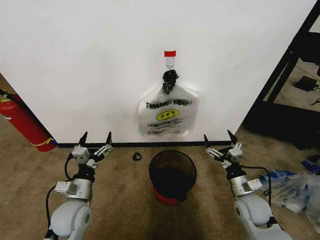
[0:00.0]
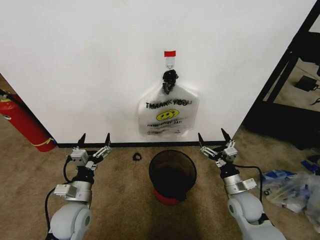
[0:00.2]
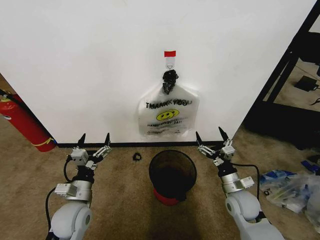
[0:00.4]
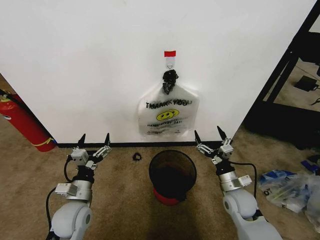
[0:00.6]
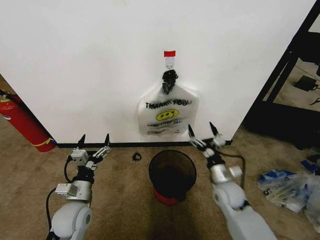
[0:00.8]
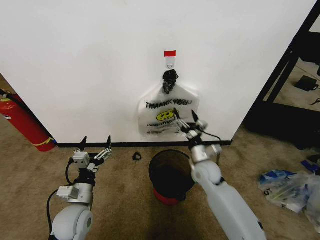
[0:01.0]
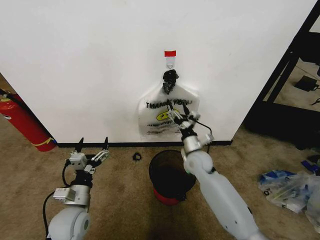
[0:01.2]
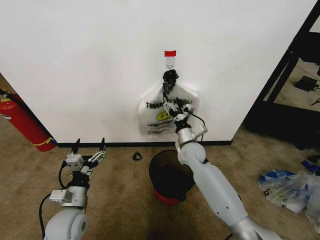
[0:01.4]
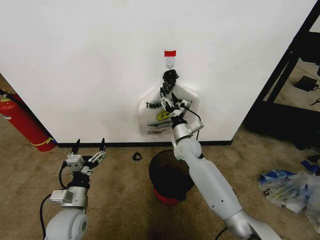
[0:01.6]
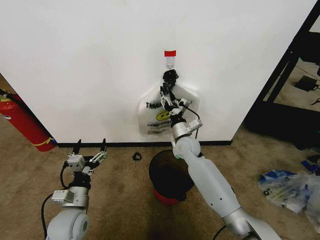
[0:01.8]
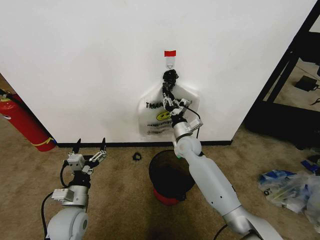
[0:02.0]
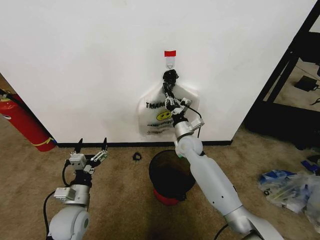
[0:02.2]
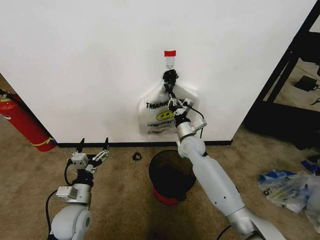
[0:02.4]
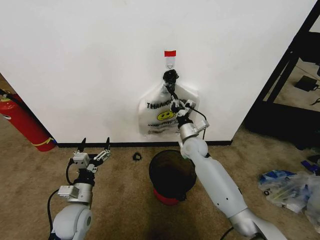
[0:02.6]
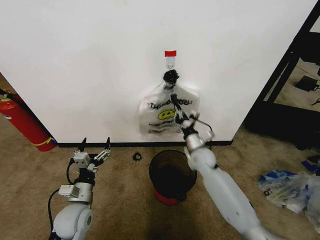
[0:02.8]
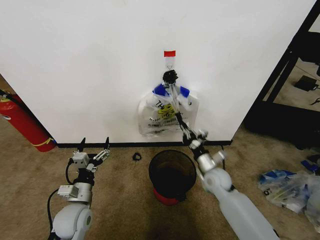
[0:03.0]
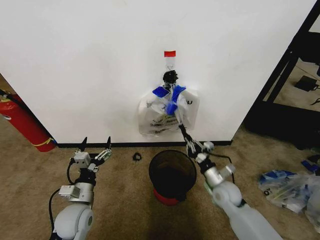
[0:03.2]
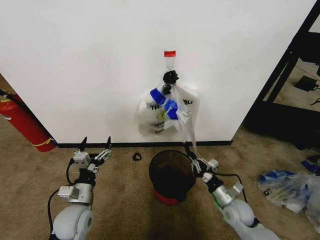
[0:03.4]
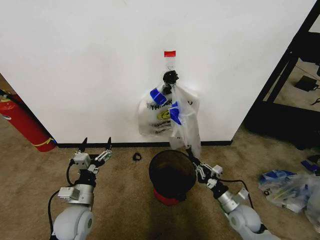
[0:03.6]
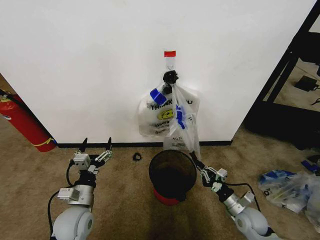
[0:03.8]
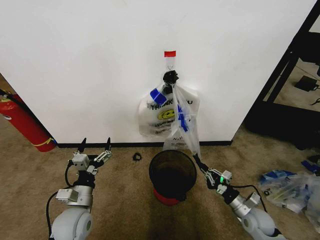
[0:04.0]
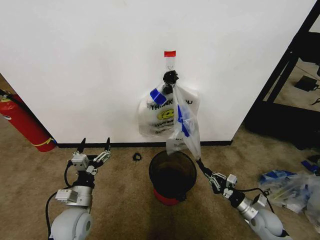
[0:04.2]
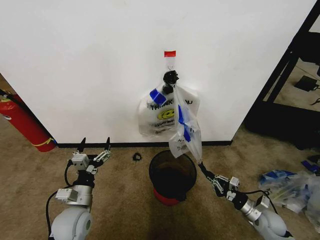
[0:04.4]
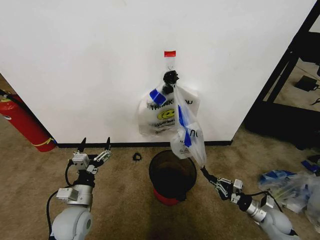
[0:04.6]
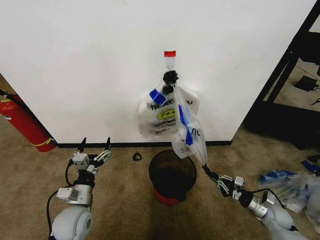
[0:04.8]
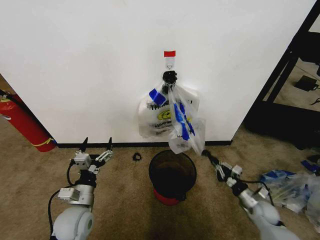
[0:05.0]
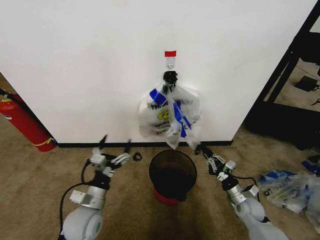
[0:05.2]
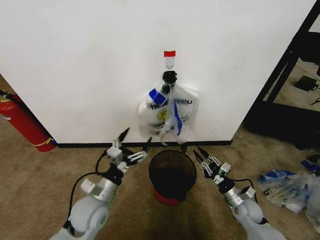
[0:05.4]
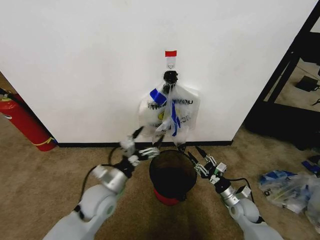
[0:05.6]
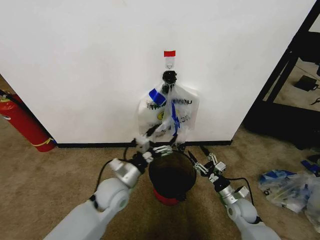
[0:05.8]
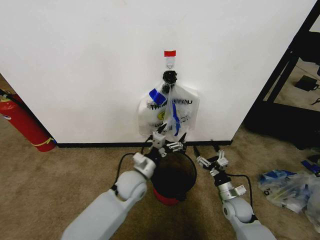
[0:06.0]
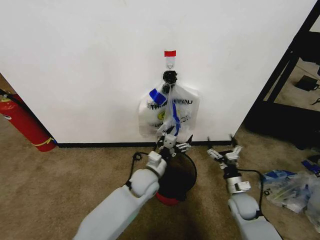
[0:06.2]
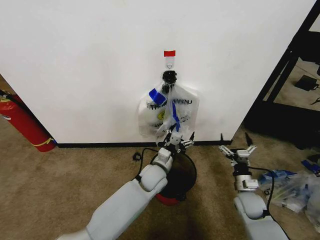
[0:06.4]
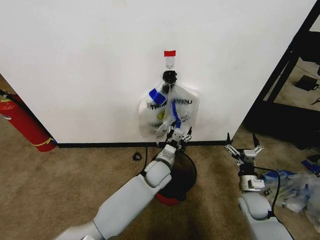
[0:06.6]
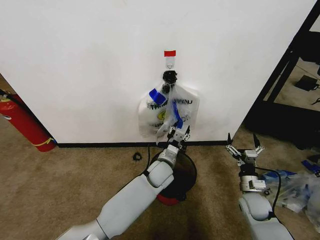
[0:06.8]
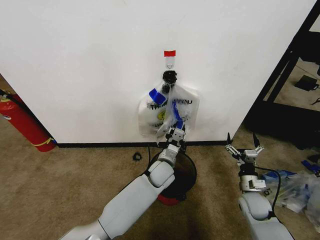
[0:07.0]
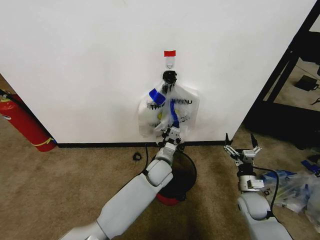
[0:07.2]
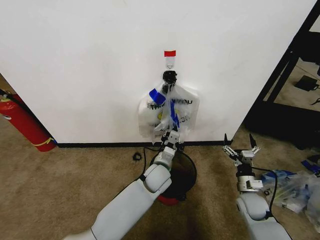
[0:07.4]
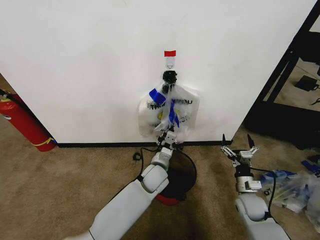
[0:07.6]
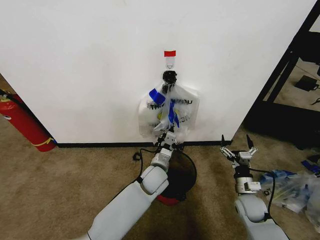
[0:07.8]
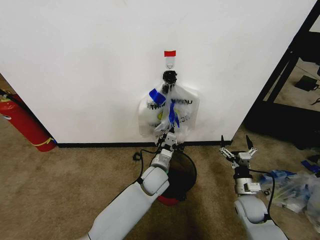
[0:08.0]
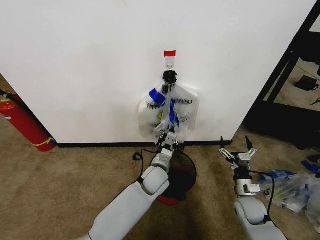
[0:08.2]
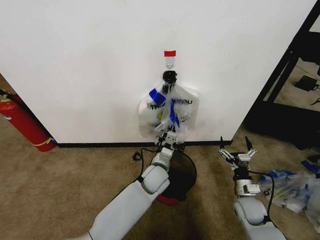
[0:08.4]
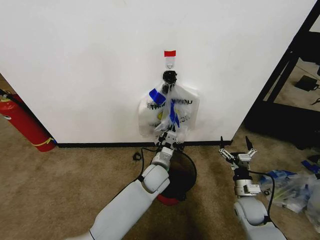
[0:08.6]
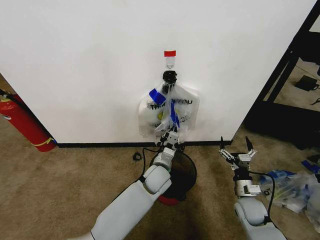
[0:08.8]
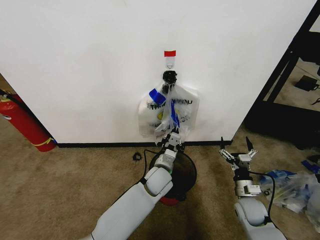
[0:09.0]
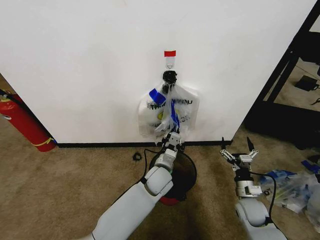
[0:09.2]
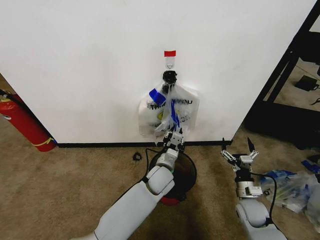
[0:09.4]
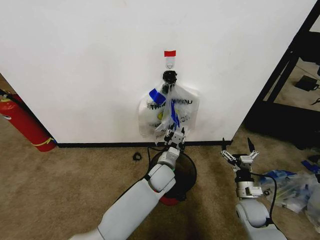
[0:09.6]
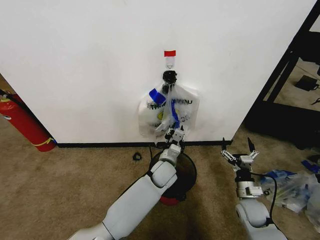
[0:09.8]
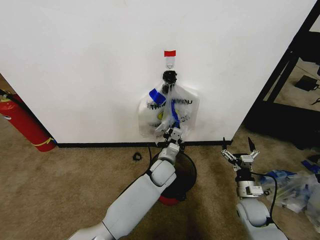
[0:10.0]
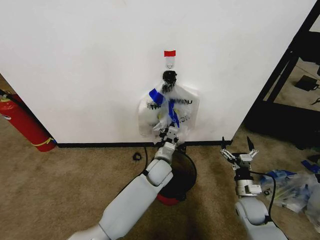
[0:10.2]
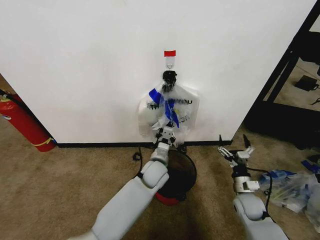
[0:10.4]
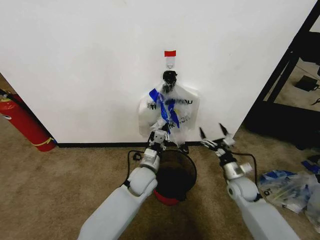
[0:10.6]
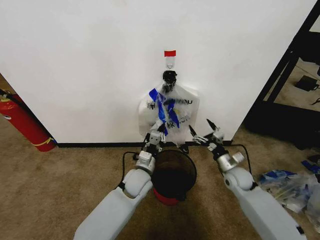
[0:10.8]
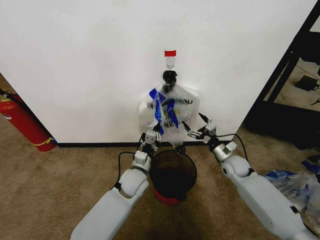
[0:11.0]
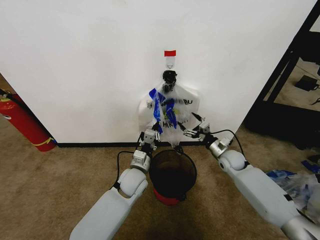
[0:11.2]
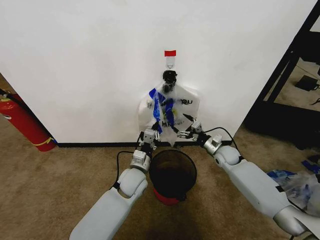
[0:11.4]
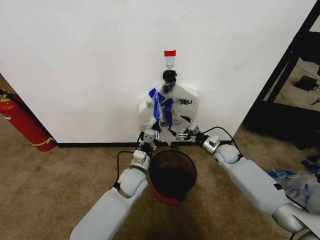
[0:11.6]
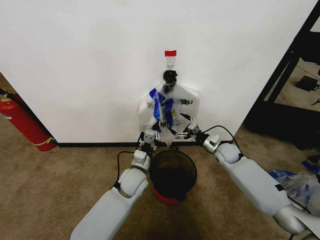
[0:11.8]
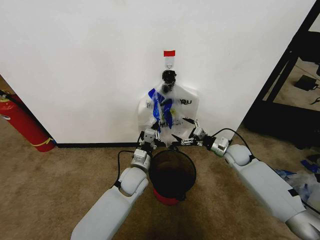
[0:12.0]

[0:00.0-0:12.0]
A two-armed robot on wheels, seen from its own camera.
Task of the whole recording: Pick up the garbage bag from the wall and place it over the trash bin.
0:01.6 to 0:03.0: The right gripper heads to the right, backward and downward, covering approximately 15 cm, and closes up.
0:03.0 to 0:04.4: The right gripper is displaced to the right, backward and downward by about 25 cm.
0:04.4 to 0:06.0: The left gripper travels to the right and forward by approximately 20 cm. The right gripper shifts about 10 cm to the left, and opens up.
0:06.0 to 0:07.6: The left gripper shifts some 10 cm to the right, and closes up. The right gripper ends up about 5 cm from where it was.
0:07.6 to 0:09.0: There are only small adjustments of the grippers.
0:09.0 to 0:10.4: The left gripper opens and closes again.
0:10.4 to 0:12.0: The right gripper travels forward and upward by approximately 20 cm; the left gripper heads to the left, covering some 5 cm.

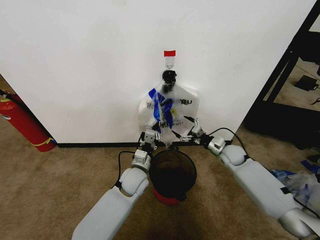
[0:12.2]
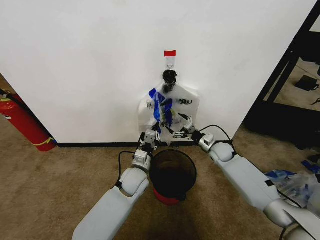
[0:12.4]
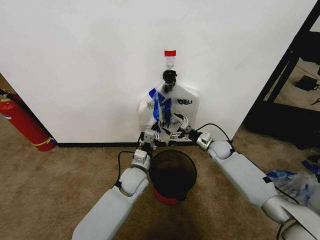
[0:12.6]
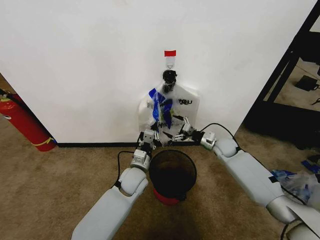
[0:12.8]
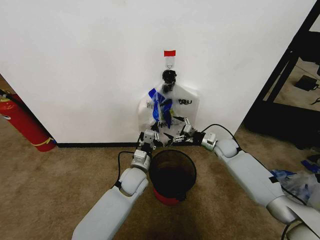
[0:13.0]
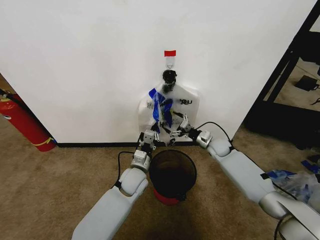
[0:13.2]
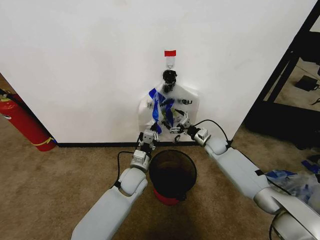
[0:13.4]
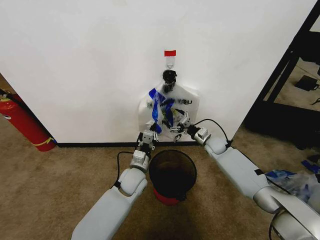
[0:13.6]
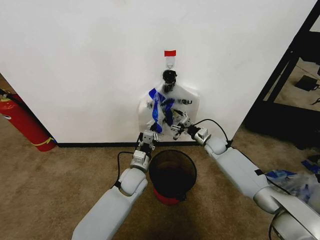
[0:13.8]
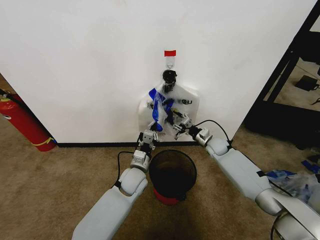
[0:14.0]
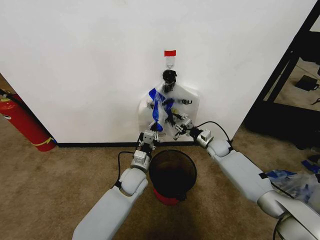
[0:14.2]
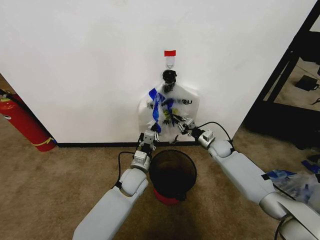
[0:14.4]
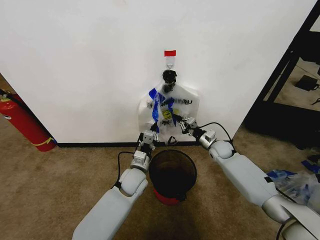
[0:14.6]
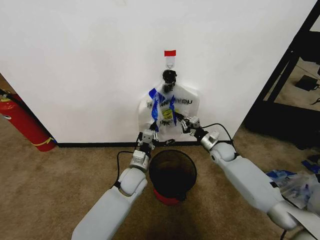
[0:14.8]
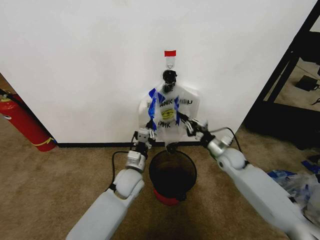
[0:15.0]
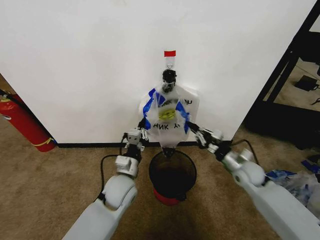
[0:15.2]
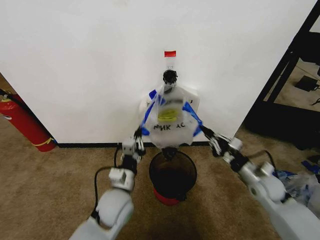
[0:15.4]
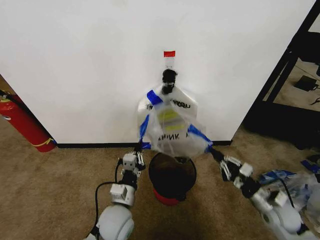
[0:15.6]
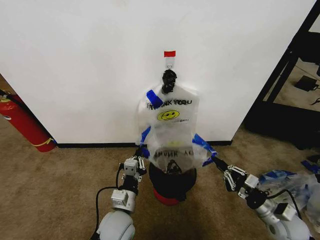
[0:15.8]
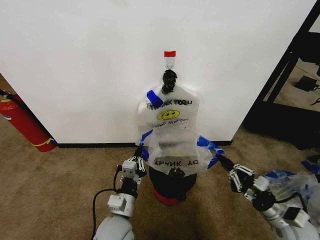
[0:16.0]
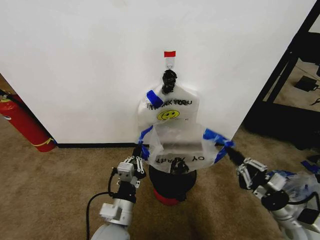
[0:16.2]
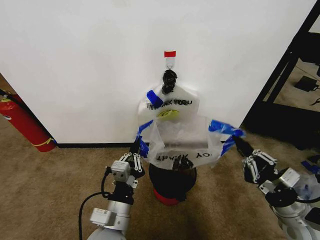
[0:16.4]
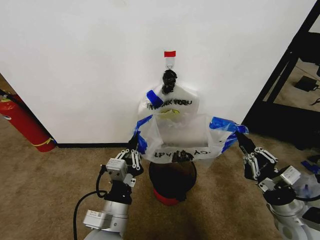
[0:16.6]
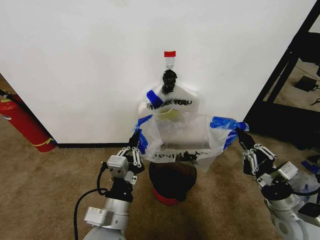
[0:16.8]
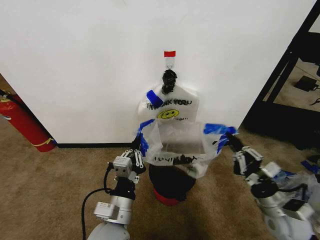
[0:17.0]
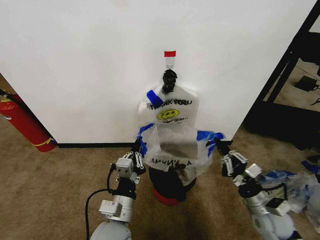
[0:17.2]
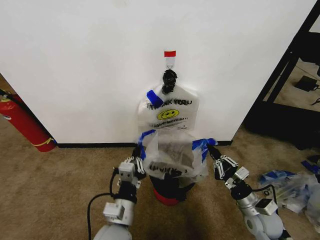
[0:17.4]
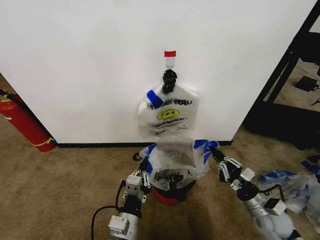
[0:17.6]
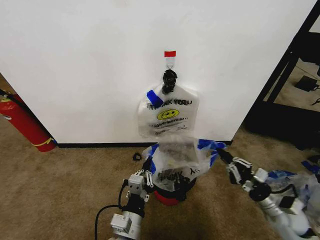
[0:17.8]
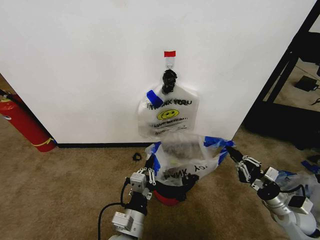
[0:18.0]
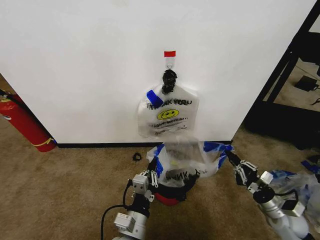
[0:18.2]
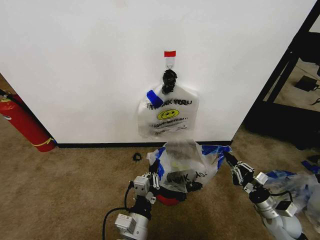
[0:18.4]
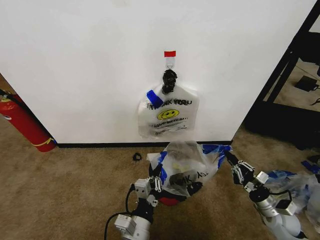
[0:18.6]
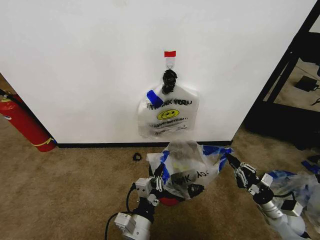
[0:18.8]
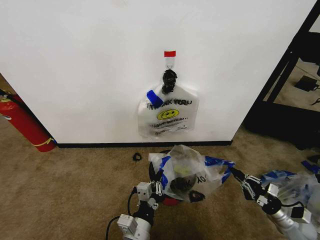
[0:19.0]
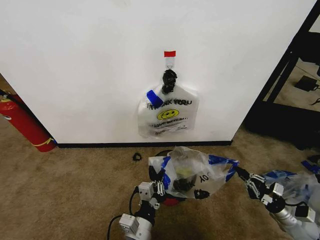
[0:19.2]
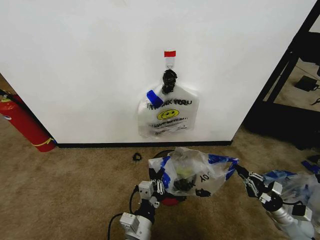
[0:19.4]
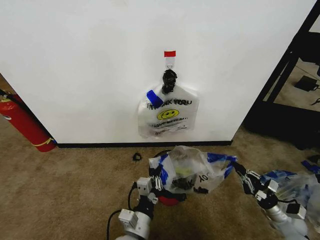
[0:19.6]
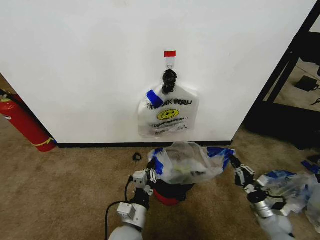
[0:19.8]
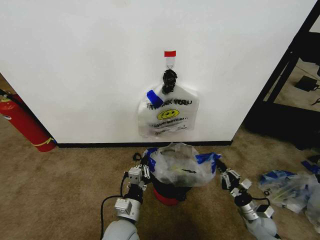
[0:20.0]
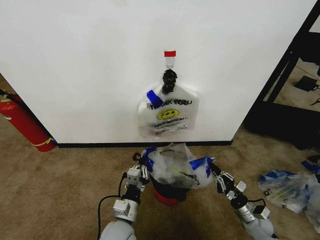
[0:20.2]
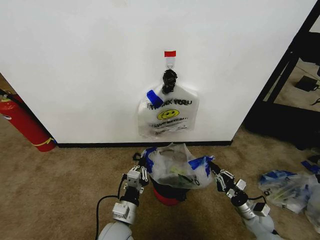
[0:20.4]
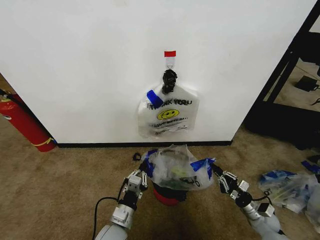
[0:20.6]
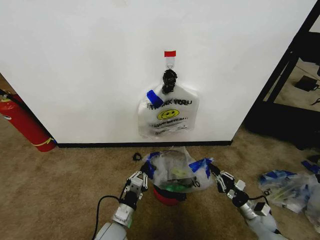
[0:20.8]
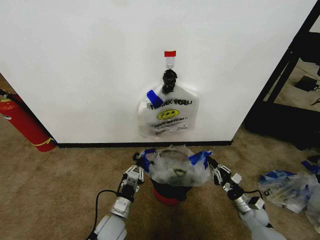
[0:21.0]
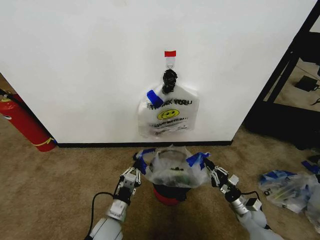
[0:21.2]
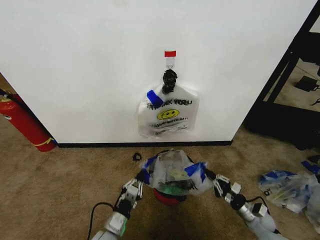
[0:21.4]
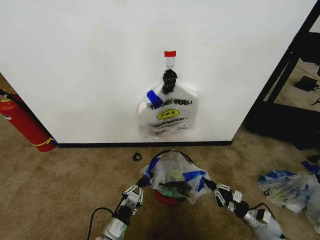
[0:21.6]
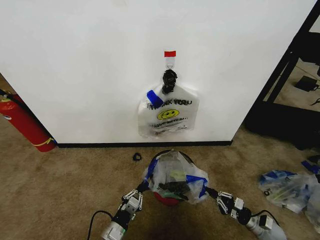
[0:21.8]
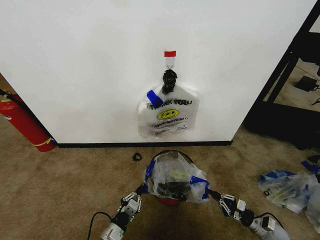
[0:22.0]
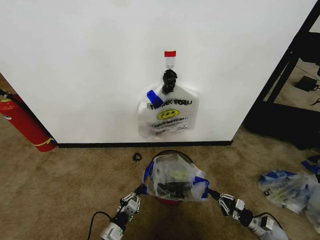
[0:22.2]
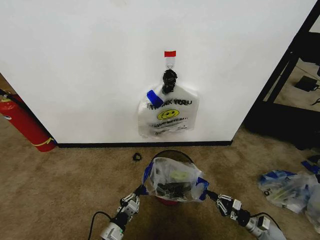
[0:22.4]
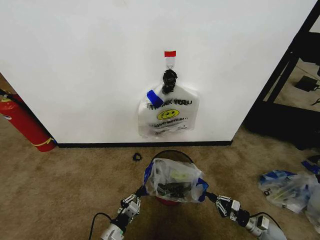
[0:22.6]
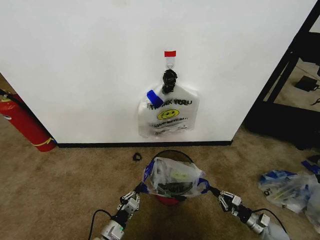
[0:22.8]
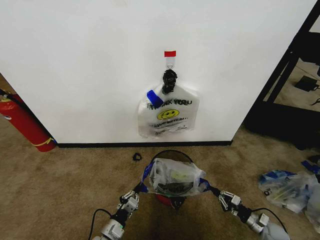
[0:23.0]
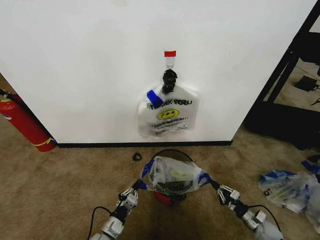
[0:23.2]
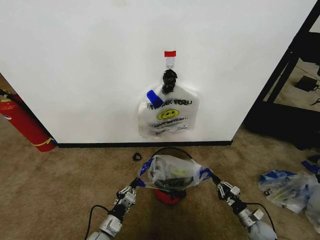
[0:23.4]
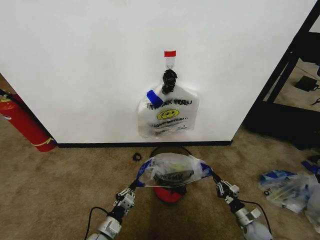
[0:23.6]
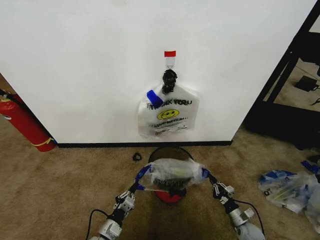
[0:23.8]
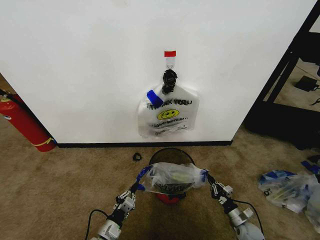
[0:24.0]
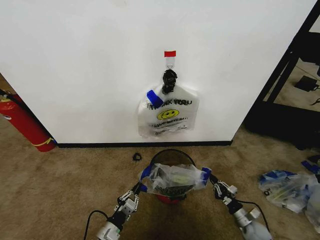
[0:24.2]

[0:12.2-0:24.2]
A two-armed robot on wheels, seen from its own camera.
Task of the whole recording: Pick up the garbage bag from the wall and place it over the trash bin.
0:12.2 to 0:13.8: The right gripper goes about 5 cm forward.
0:13.8 to 0:15.2: The left gripper moves backward, roughly 5 cm, while the right gripper shifts roughly 15 cm backward and to the right, and closes up.
0:15.2 to 0:16.6: Both grippers travel together backward, some 20 cm.
0:16.6 to 0:18.2: The left gripper shifts some 5 cm downward, while the right gripper moves downward and to the right, approximately 15 cm.
0:18.2 to 0:19.8: The right gripper goes about 10 cm downward.
0:19.8 to 0:21.2: The right gripper travels to the left by about 5 cm, while the left gripper heads to the left and downward, covering roughly 10 cm.
0:21.2 to 0:22.6: The left gripper shifts about 10 cm downward and backward, while the right gripper travels to the right and downward by approximately 10 cm.
0:22.6 to 0:24.2: The right gripper is displaced to the left by some 5 cm.
